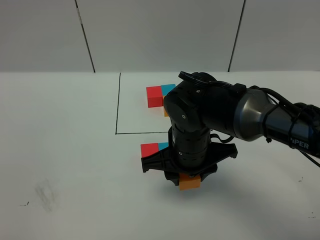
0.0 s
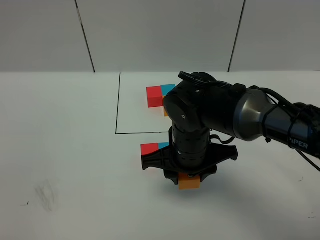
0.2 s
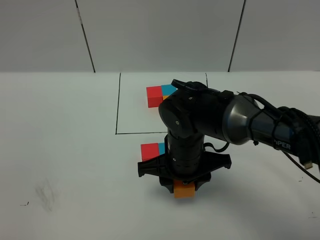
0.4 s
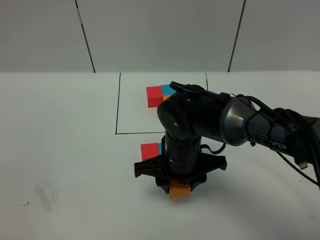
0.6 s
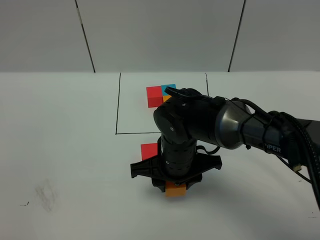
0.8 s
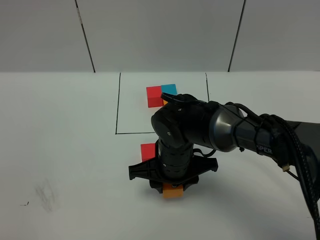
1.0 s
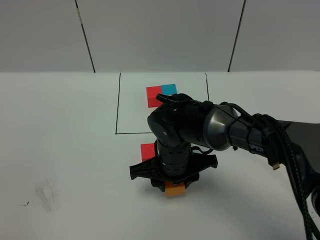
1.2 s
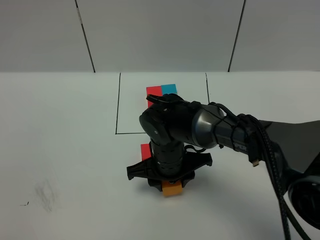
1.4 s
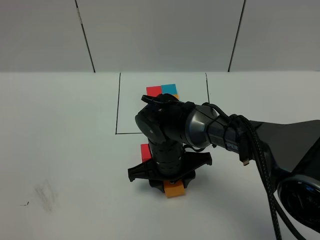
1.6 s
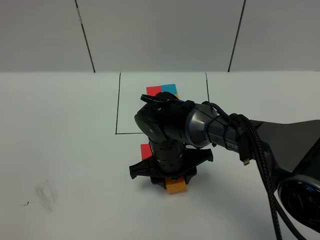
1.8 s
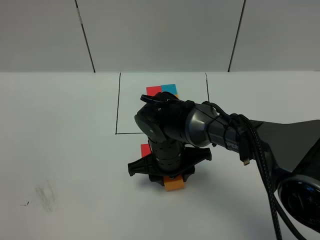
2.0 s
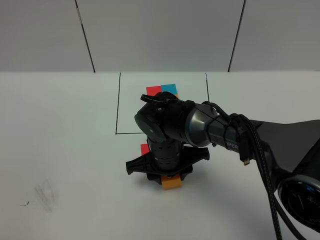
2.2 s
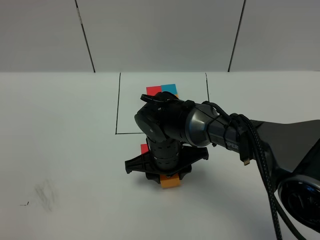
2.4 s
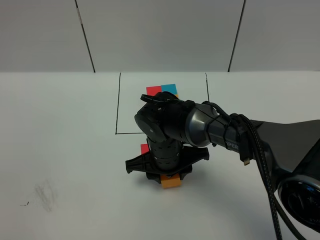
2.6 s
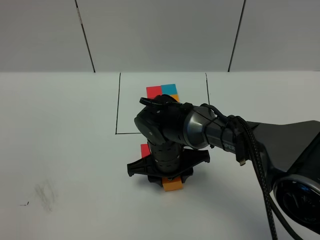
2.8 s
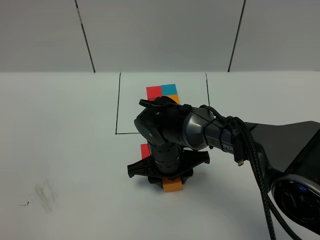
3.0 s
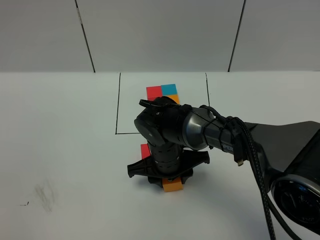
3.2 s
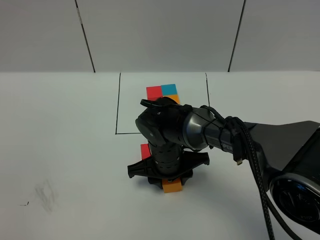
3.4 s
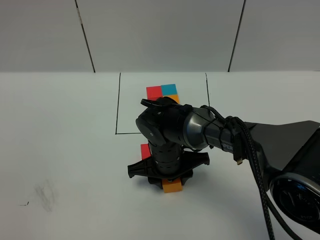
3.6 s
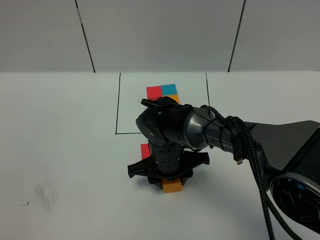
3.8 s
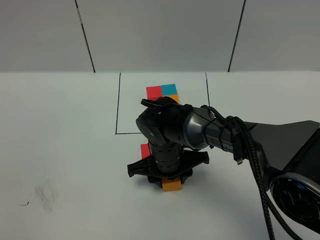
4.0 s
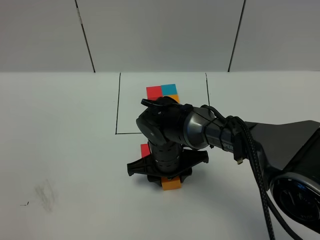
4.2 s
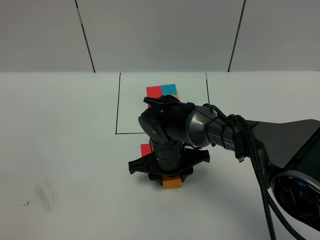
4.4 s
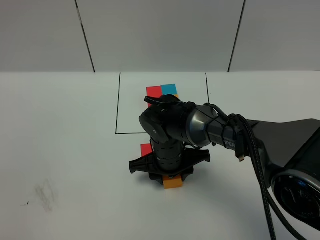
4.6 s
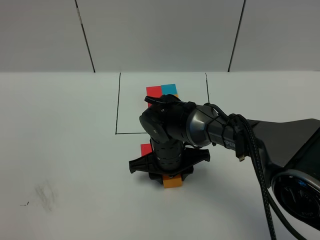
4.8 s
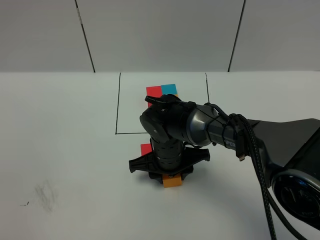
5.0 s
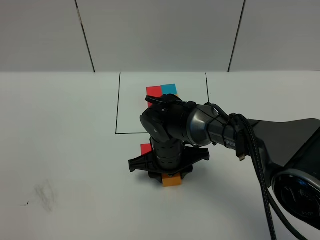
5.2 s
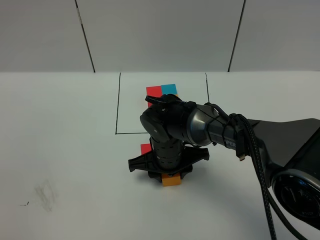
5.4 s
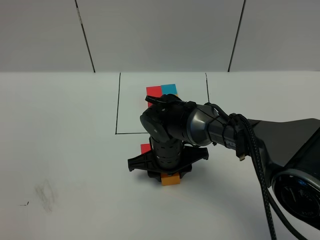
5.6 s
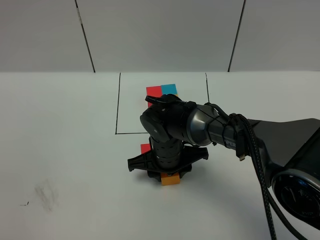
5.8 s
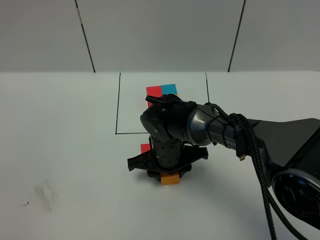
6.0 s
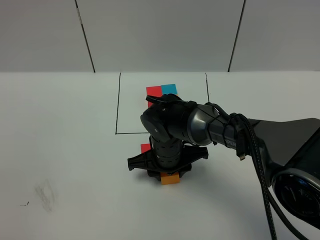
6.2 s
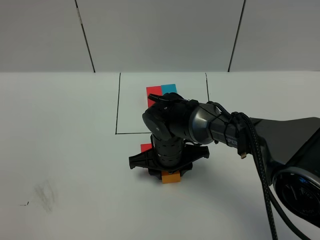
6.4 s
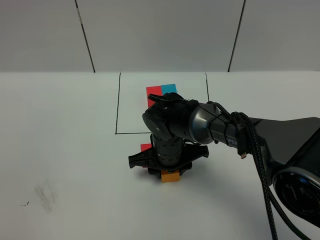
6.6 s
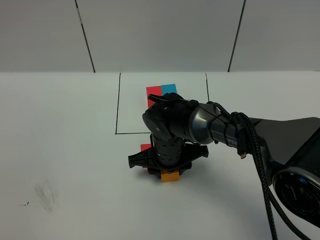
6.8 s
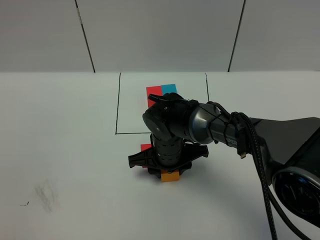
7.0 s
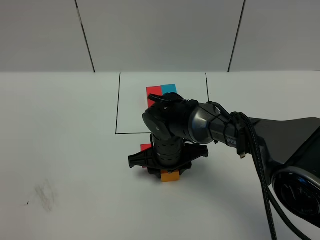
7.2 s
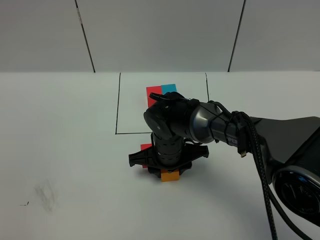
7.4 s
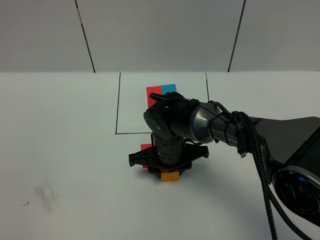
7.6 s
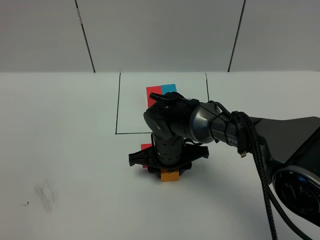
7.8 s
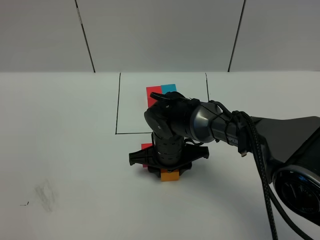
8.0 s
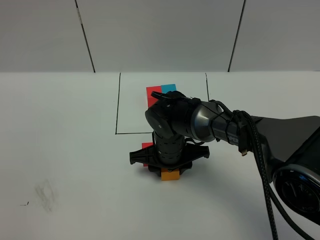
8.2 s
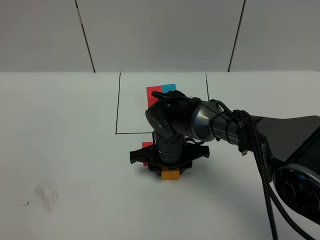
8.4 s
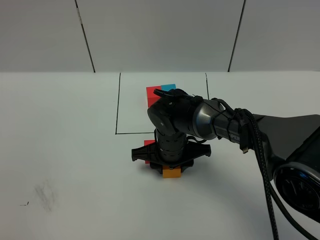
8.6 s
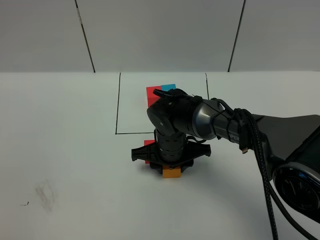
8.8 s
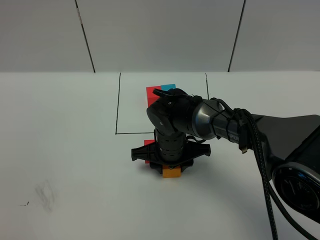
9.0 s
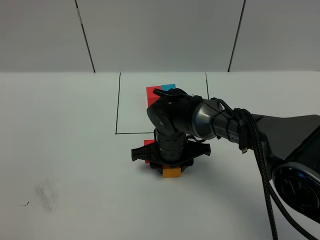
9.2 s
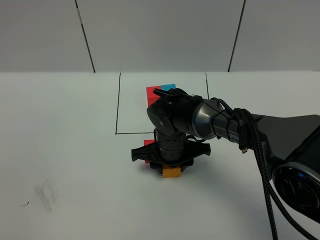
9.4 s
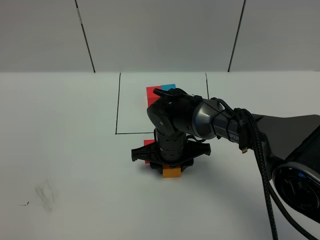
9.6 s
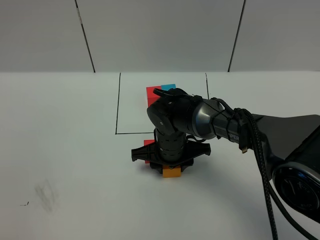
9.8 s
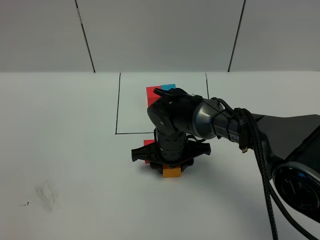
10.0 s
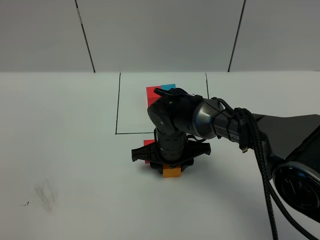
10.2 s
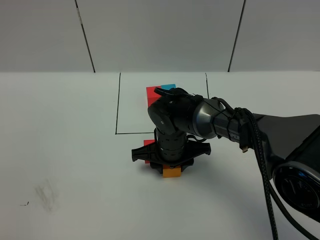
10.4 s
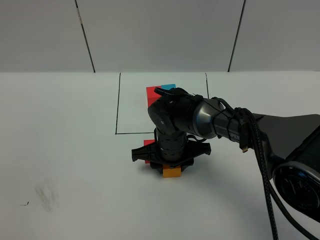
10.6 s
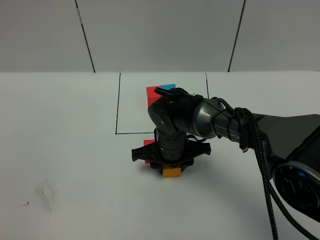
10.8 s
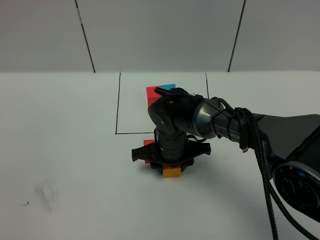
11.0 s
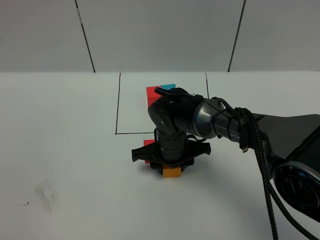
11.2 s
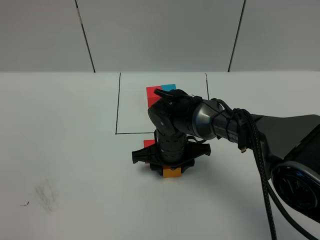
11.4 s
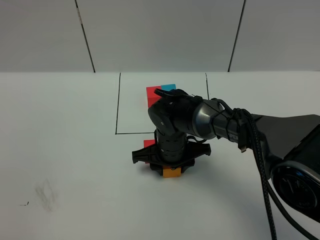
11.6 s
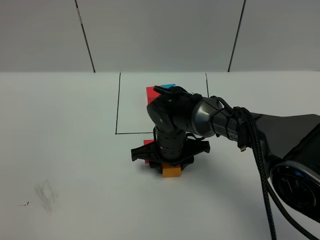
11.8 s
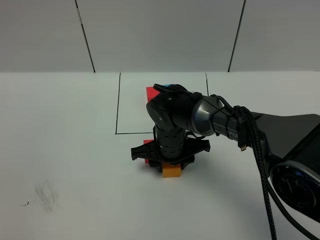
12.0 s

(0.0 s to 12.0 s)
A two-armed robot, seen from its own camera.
Task of the whole recording: According to the building block template in front, assemble the scattered blocks together.
0.0 s - 1.6 s: The right gripper goes roughly 5 cm downward.
1.6 s - 3.0 s: The grippers make only small movements.
3.0 s - 4.4 s: The two grippers keep their place.
4.4 s - 7.6 s: Neither gripper changes place.
7.6 s - 10.4 s: Both grippers stay about where they are.
10.4 s - 12.0 s: The two grippers keep their place.

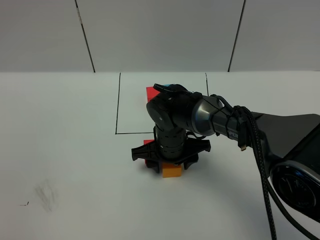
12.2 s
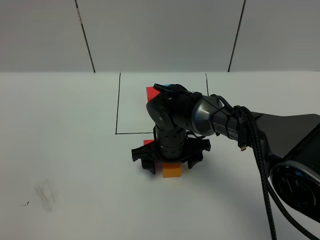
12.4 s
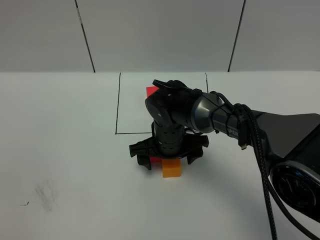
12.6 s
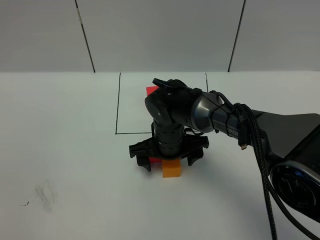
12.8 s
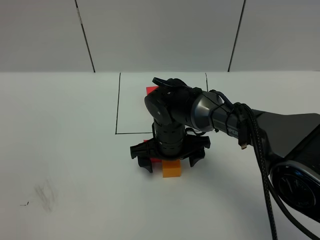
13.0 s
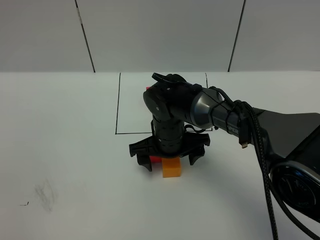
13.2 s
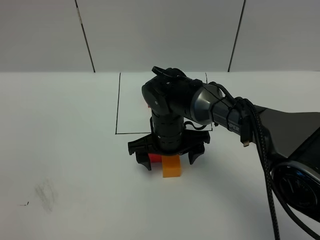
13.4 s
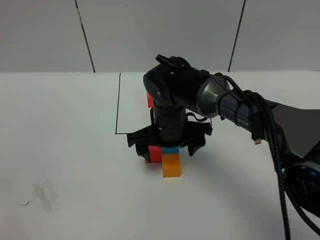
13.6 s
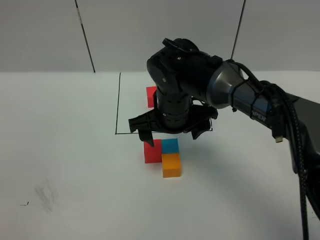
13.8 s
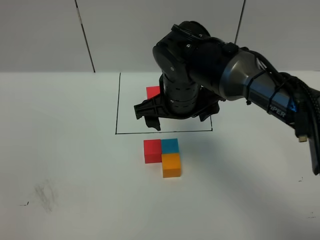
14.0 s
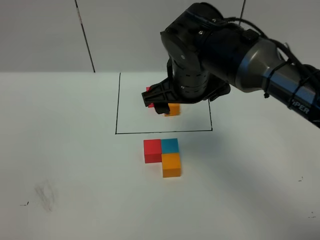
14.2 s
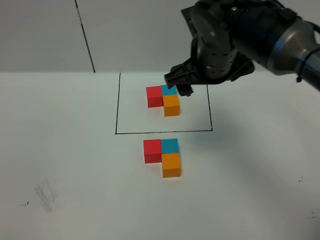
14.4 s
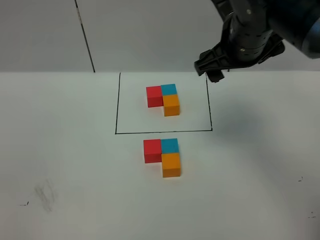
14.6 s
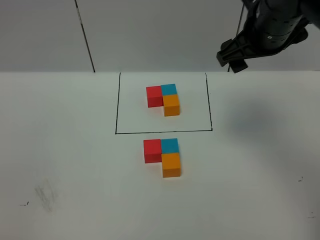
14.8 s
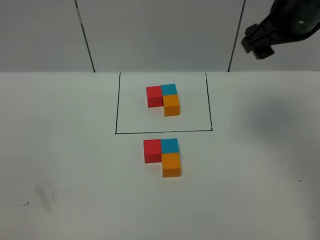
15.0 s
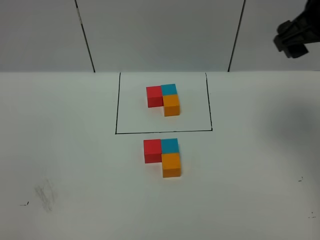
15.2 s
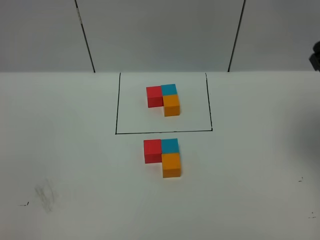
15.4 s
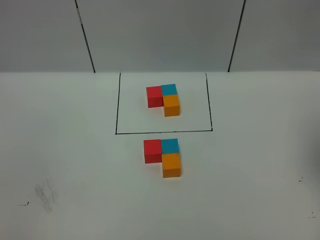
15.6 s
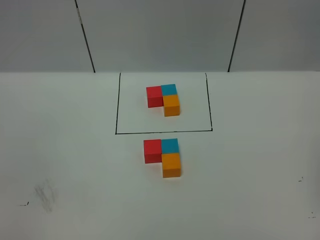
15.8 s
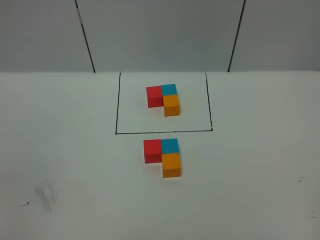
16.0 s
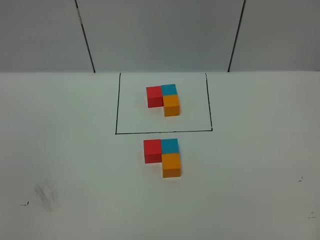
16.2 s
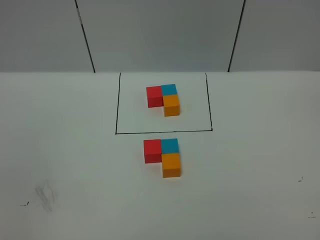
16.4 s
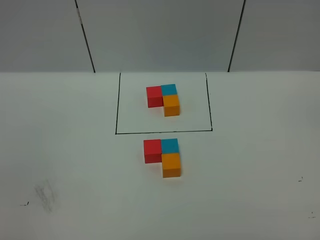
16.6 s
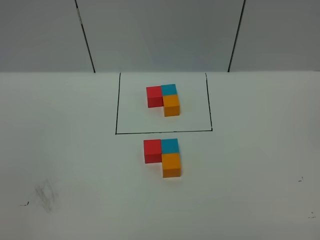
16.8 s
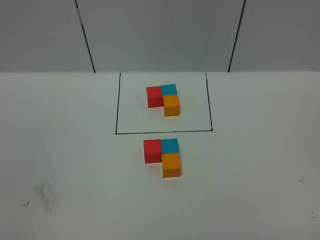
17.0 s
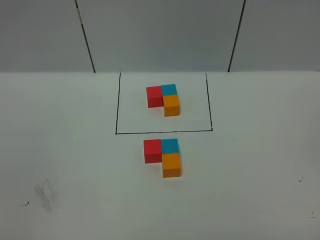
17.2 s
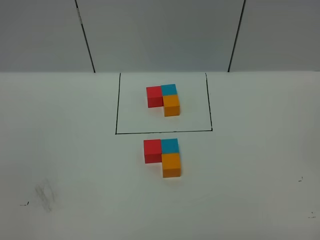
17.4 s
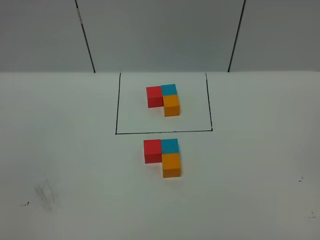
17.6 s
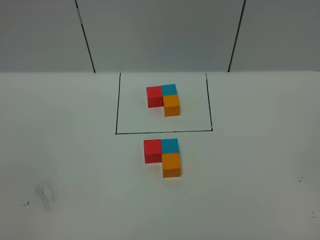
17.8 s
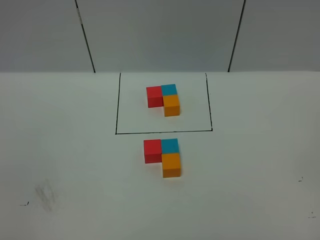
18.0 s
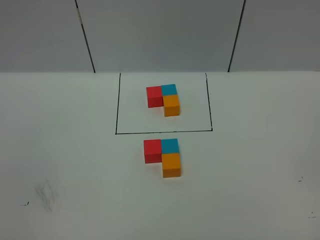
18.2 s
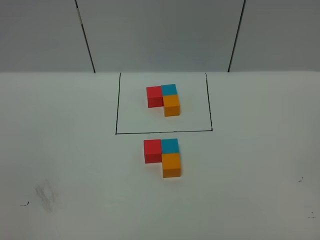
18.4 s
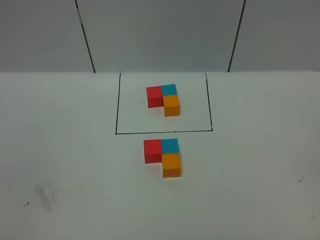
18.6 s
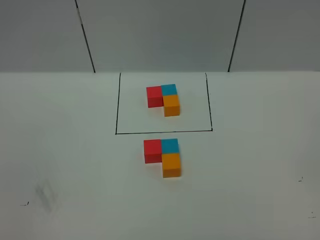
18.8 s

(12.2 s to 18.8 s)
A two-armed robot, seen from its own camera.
Task of the whole recording: According to the building block template in front, assemble the scattered blocks together.
12.2 s - 13.8 s: The right gripper moves upward, about 10 cm.
13.8 s - 15.4 s: The right gripper moves to the right and upward, about 30 cm.
15.4 s - 17.2 s: The right gripper shifts roughly 30 cm backward.
